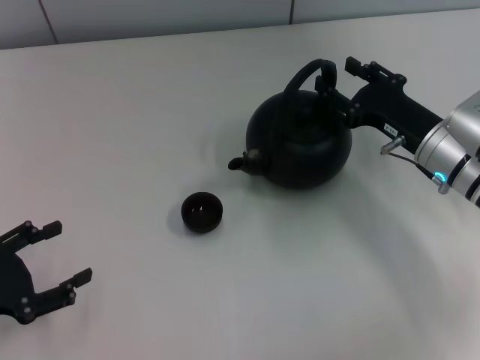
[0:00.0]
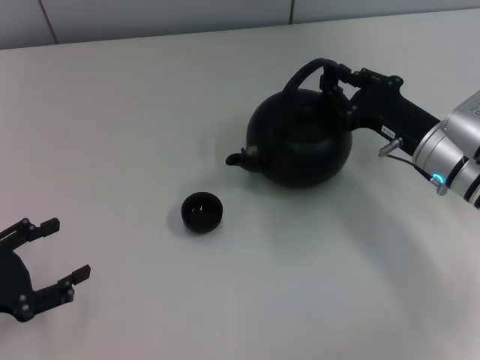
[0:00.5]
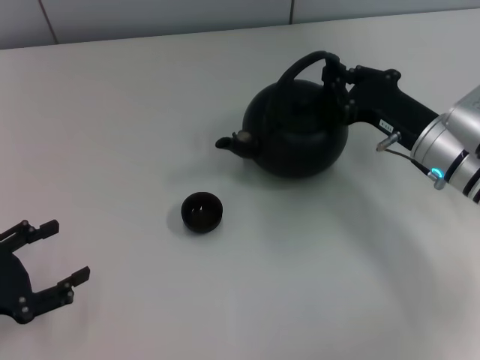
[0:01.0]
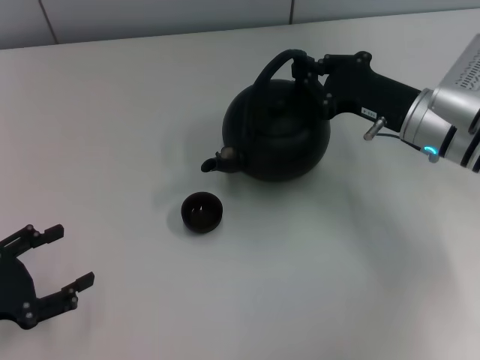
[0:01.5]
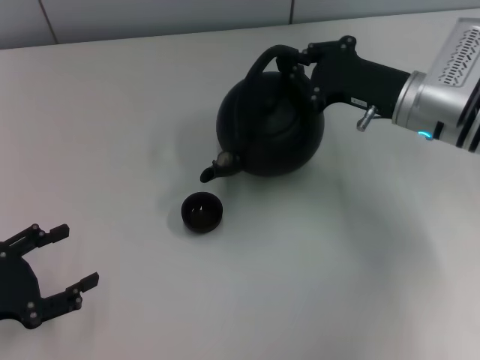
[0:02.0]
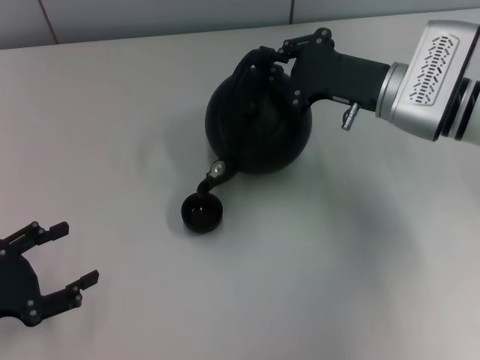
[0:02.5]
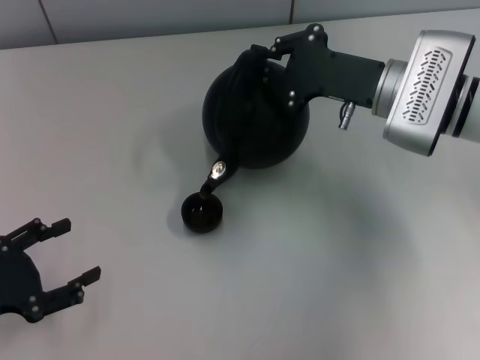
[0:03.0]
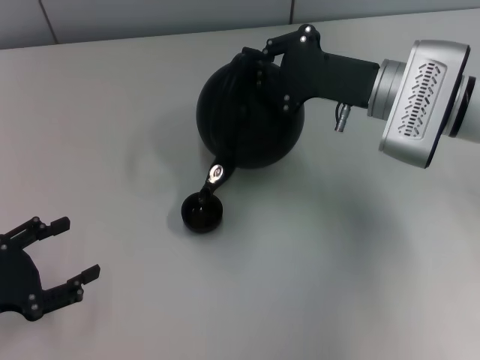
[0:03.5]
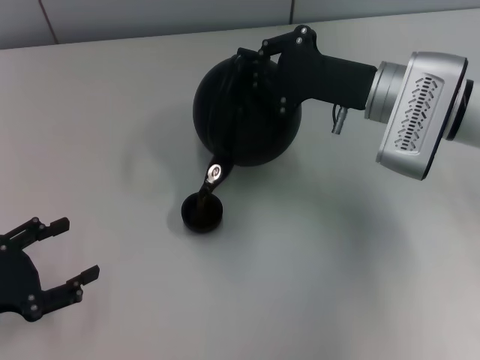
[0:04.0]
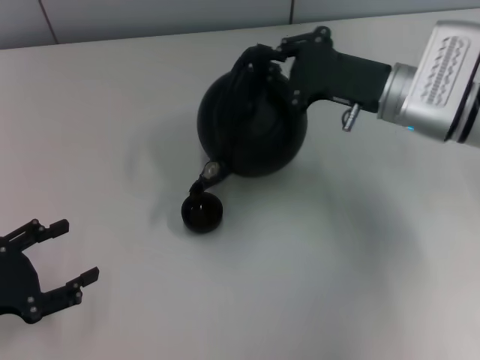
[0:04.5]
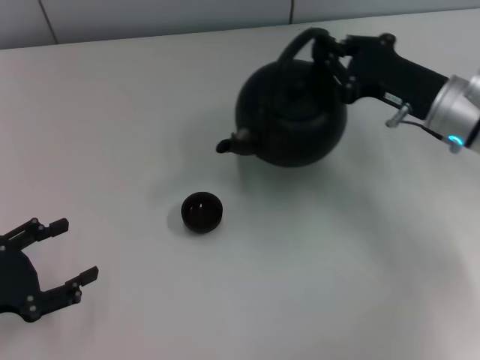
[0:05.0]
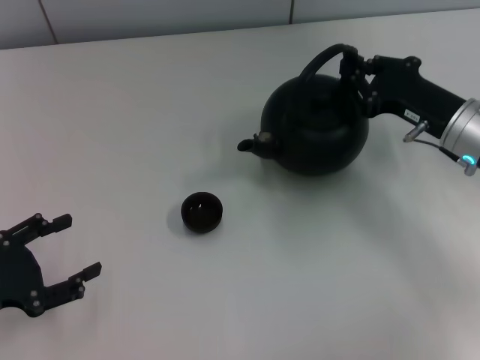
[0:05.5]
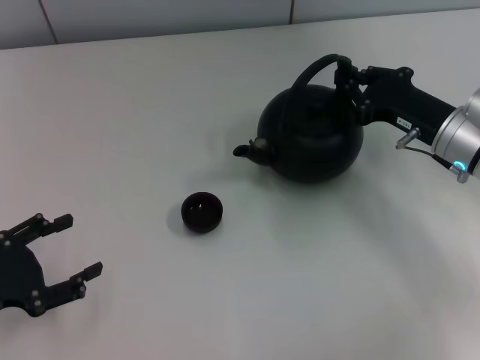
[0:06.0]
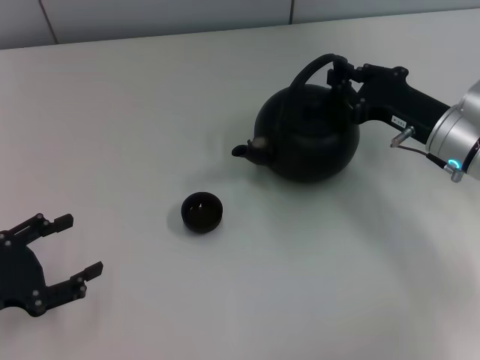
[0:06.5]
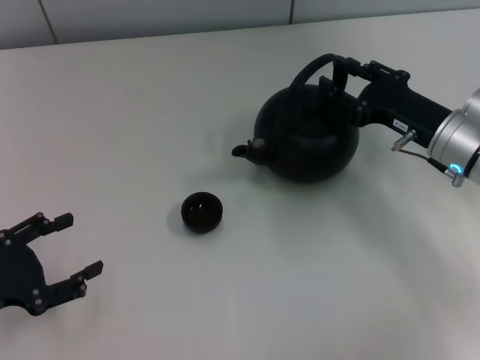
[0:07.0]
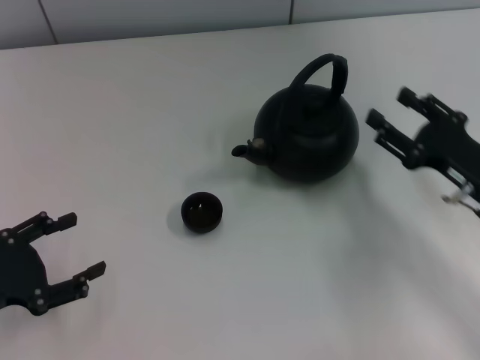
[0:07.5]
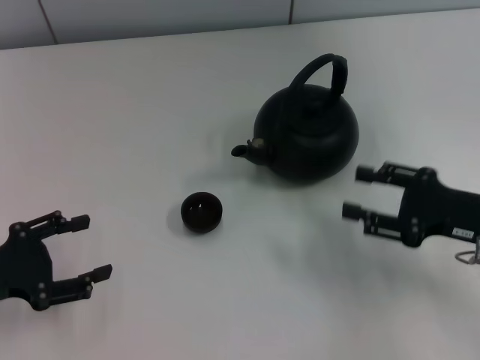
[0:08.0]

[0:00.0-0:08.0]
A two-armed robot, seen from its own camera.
Task of the whole recording: Grasp the handle of the teapot with one hand and pour tea into the teacup.
Step, 0:05.0 to 0:07.0: Put down the teapot with the right gripper.
0:00.0 to 0:02.0: The right gripper changes place by some 5 cm, and closes its fingers.
0:04.0 to 0:06.0: The right gripper shifts about 5 cm to the right.
0:06.0 to 0:08.0: The right gripper travels backward by approximately 10 cm, and opens its fingers.
